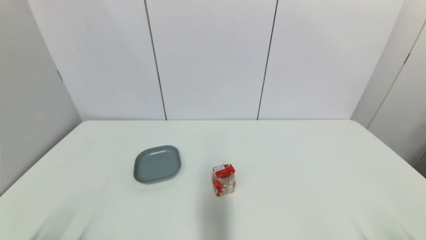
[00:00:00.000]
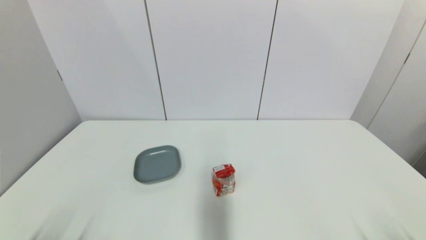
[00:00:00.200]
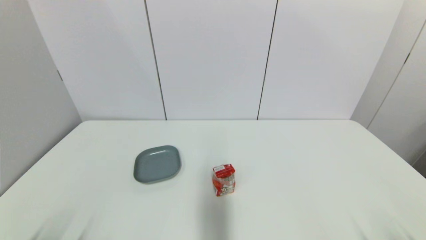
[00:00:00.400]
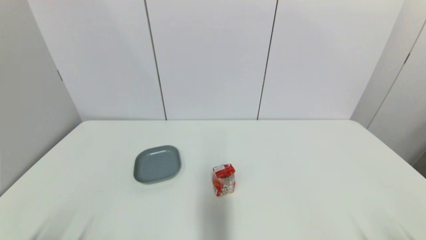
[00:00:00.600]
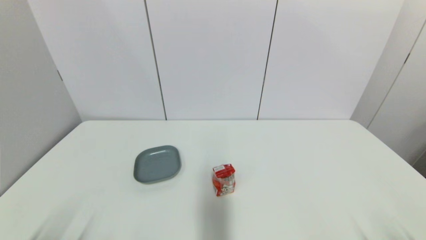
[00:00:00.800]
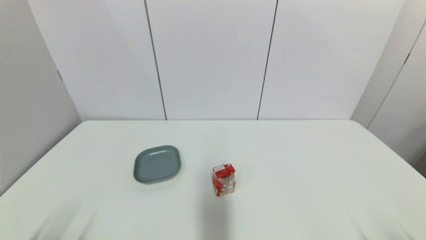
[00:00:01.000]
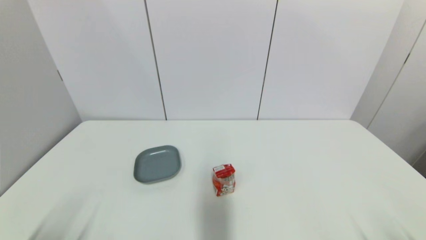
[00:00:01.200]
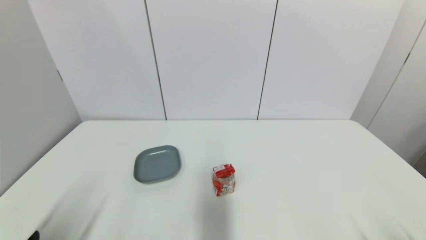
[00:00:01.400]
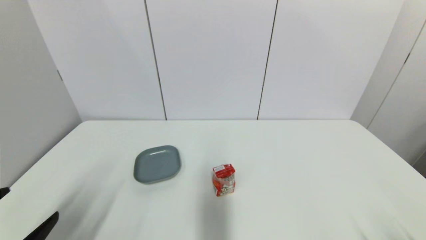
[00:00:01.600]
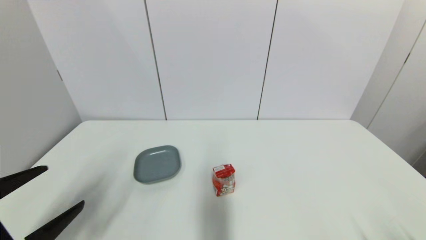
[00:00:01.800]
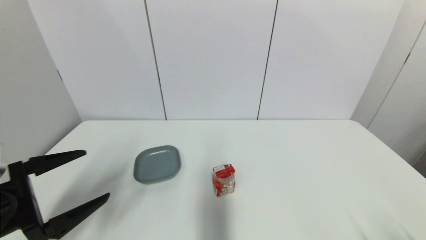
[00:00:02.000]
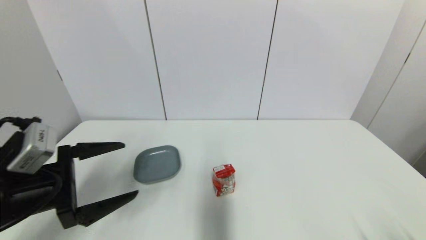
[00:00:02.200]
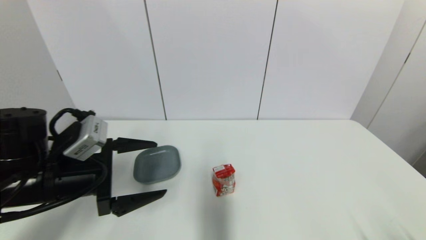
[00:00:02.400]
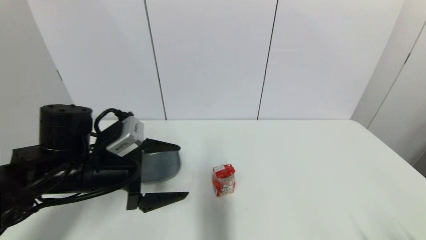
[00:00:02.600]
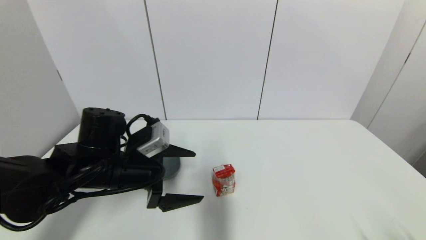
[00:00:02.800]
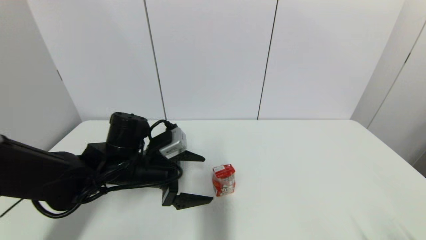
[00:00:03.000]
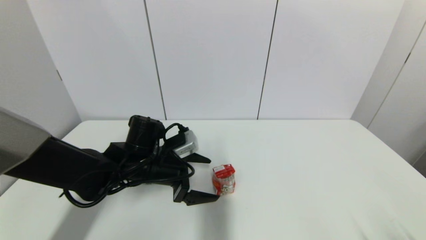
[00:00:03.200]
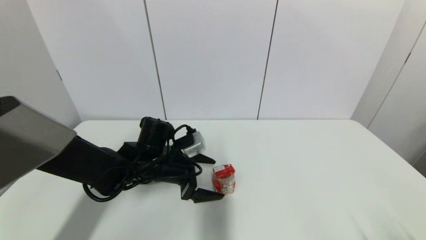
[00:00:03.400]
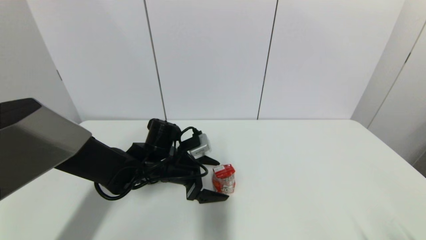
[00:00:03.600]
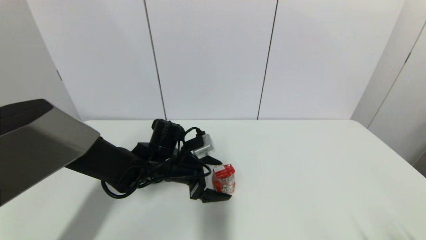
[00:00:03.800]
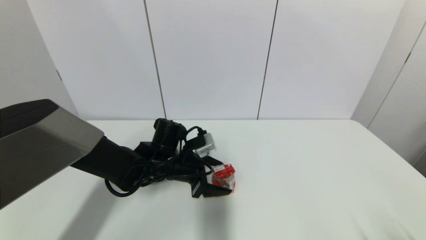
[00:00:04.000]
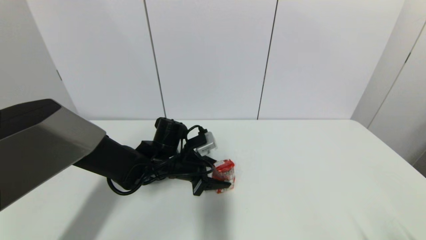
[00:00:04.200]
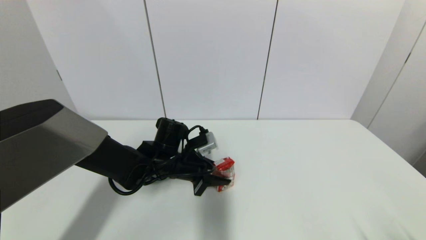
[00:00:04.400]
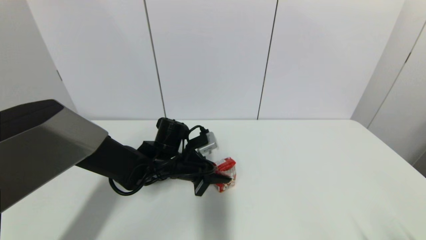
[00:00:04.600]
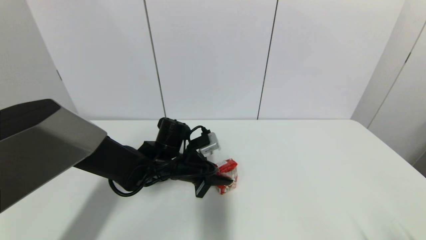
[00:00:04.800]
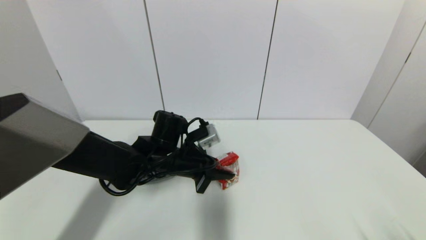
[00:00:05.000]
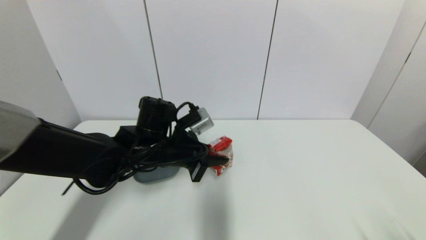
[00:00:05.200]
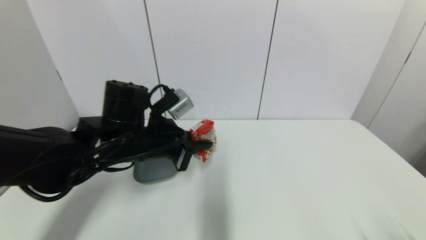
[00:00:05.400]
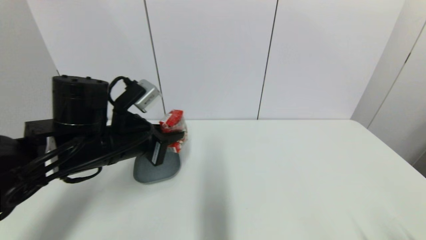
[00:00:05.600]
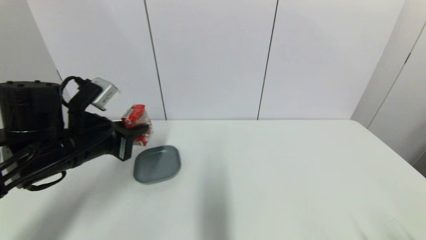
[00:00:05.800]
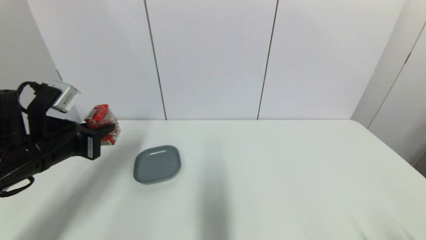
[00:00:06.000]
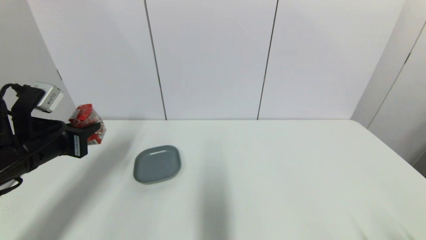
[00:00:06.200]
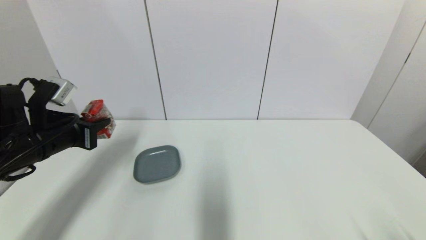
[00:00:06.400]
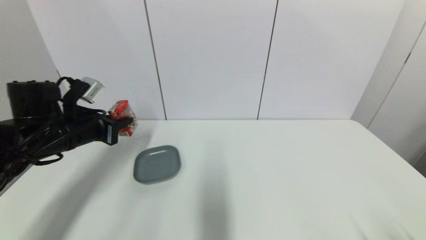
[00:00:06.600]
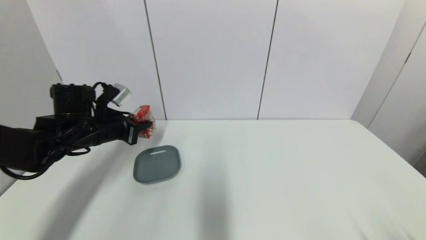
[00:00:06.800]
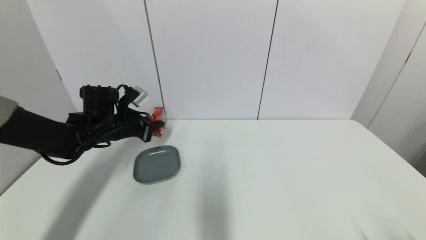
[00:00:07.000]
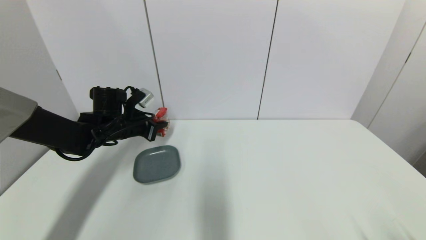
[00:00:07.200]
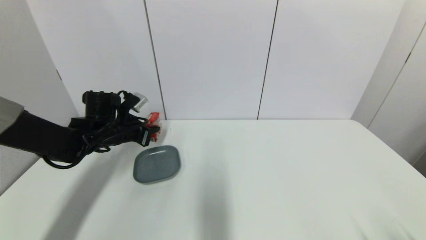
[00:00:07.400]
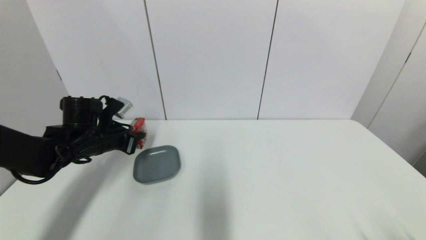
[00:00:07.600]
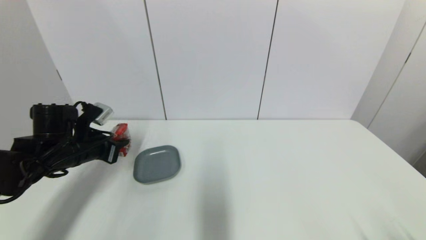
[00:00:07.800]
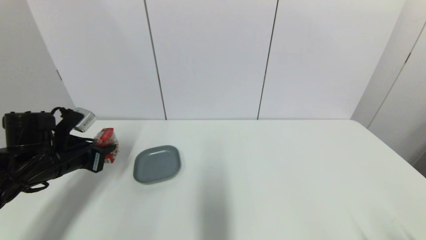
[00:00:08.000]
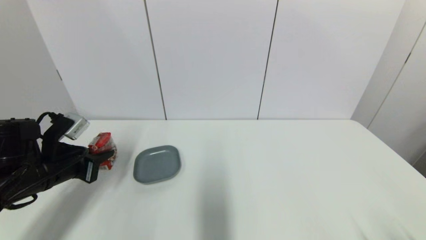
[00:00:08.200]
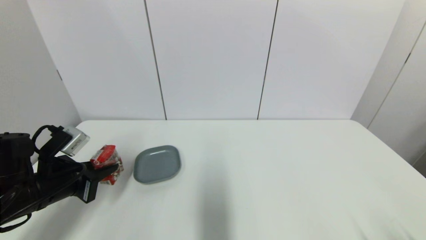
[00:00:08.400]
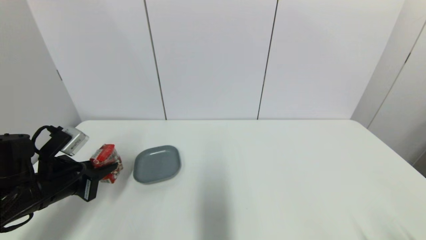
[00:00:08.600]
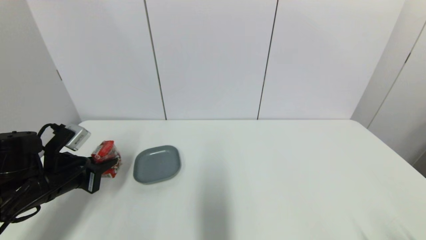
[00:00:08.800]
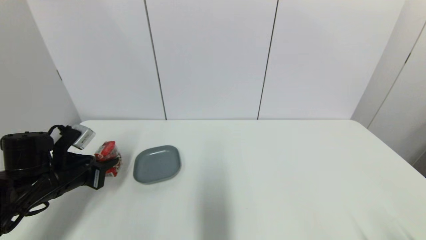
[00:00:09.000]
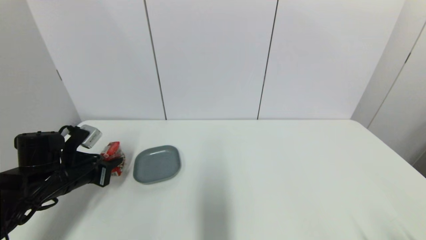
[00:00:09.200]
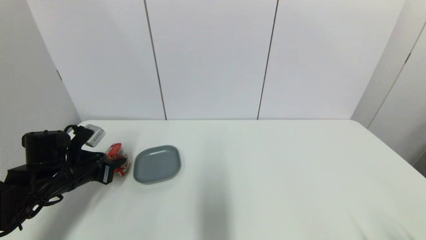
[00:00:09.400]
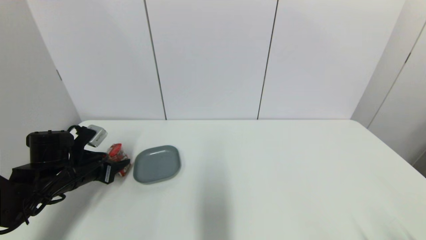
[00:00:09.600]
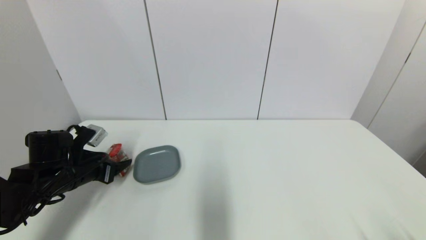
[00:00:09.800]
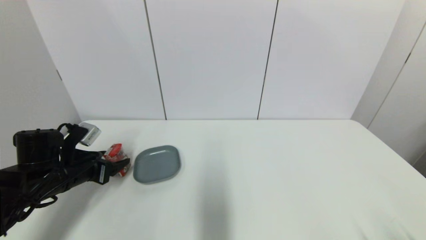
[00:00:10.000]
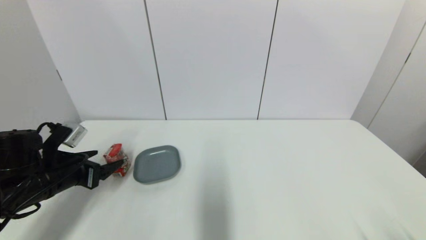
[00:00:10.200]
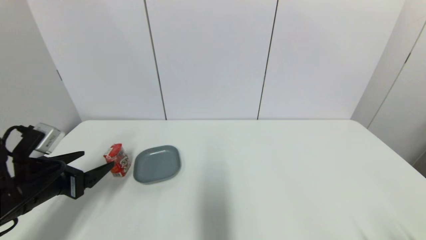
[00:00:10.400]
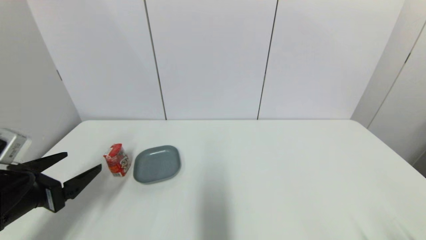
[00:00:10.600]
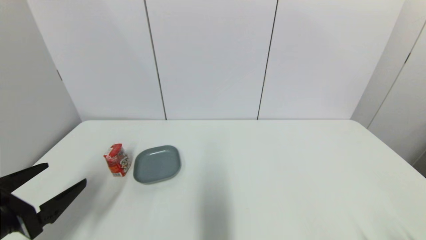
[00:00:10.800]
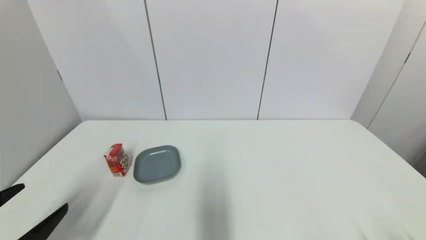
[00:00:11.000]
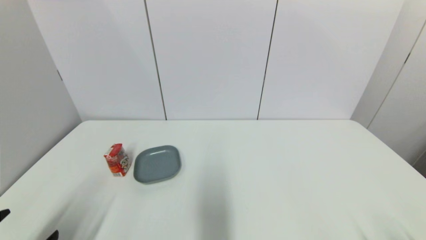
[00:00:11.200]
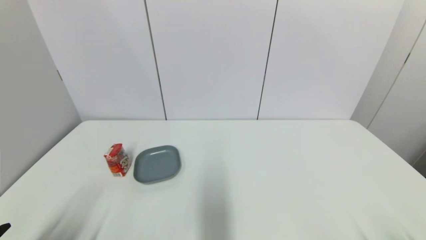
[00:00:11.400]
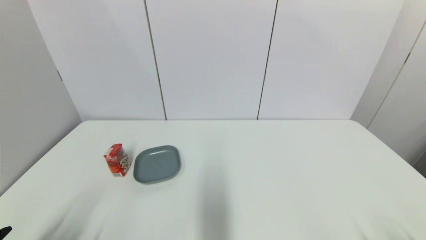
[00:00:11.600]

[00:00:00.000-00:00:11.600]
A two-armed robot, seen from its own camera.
Step, 00:00:01.400 to 00:00:04.800: Grasp the wangzai milk with left gripper.
Step, 00:00:05.000 to 00:00:09.600: Place the wangzai milk on the table with left gripper.
00:00:00.000 to 00:00:01.400: The left gripper heads upward, covering roughly 5 cm.
00:00:01.400 to 00:00:02.800: The left gripper goes roughly 25 cm forward and to the right.
00:00:02.800 to 00:00:04.400: The left gripper shifts some 10 cm to the right, forward and downward, and closes its fingers.
00:00:04.400 to 00:00:05.800: The left gripper goes approximately 20 cm to the left, upward and backward.
00:00:05.800 to 00:00:07.200: The left gripper moves forward and downward, some 15 cm.
00:00:07.200 to 00:00:08.800: The left gripper goes about 15 cm backward and to the left.
00:00:08.800 to 00:00:10.200: The left gripper opens up.
00:00:10.200 to 00:00:11.600: The left gripper moves backward, roughly 20 cm.

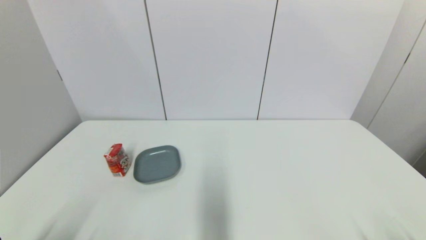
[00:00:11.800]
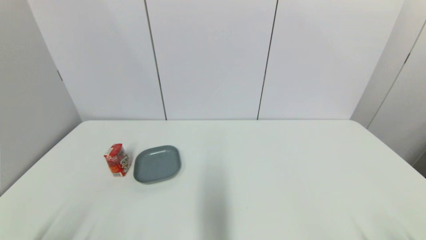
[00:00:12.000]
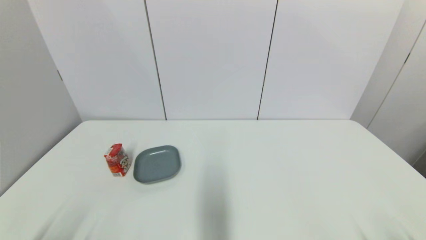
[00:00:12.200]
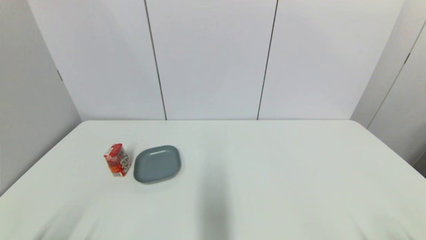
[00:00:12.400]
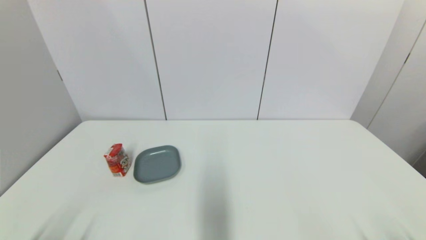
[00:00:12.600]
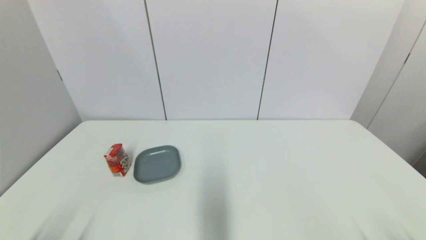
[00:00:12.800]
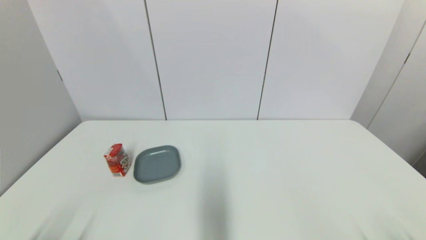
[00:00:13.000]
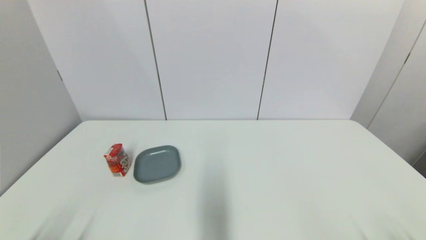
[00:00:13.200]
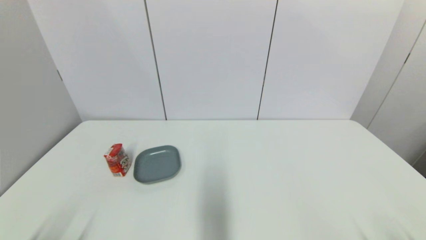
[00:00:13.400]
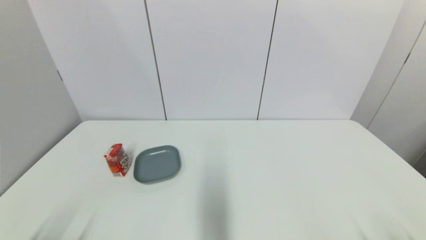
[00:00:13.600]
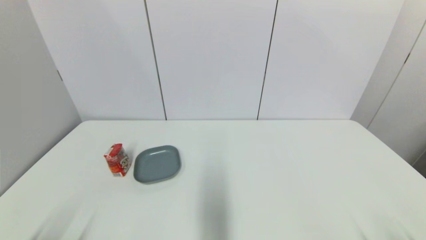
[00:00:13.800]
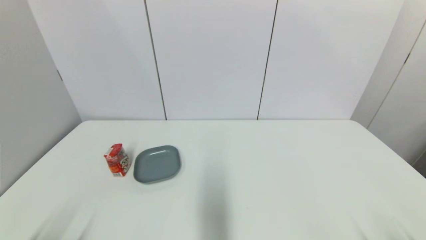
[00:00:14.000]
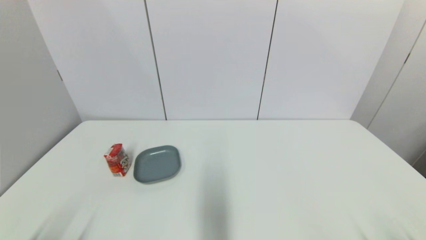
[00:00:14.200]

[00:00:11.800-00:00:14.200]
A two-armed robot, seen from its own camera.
00:00:13.000 to 00:00:14.200: The two grippers keep their place.
